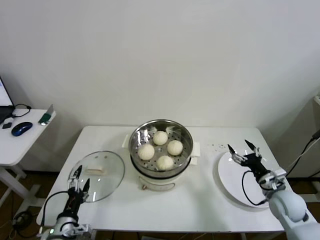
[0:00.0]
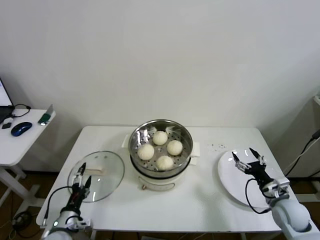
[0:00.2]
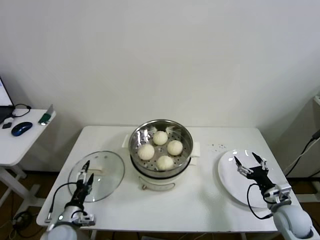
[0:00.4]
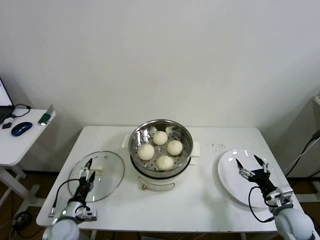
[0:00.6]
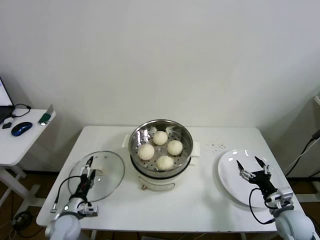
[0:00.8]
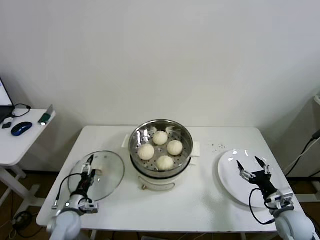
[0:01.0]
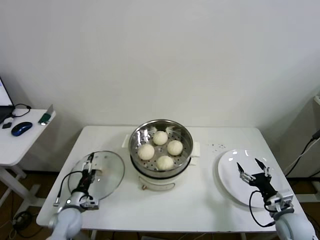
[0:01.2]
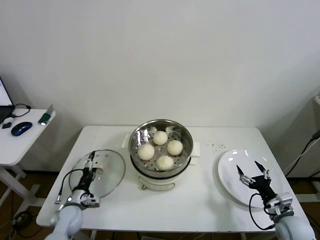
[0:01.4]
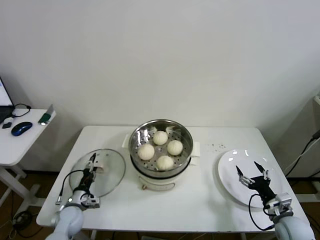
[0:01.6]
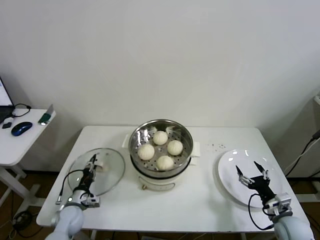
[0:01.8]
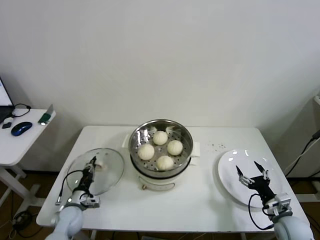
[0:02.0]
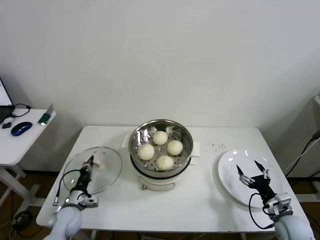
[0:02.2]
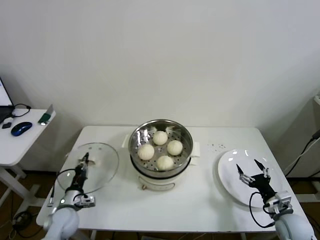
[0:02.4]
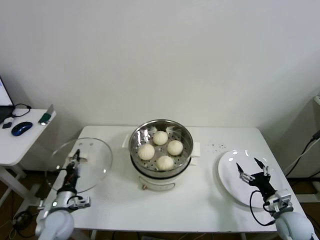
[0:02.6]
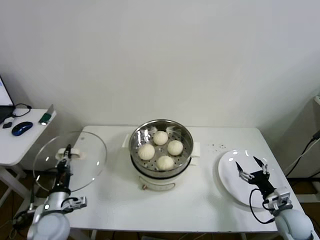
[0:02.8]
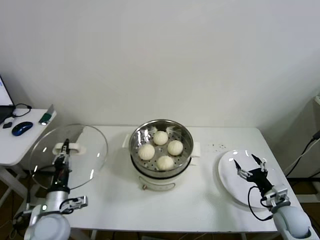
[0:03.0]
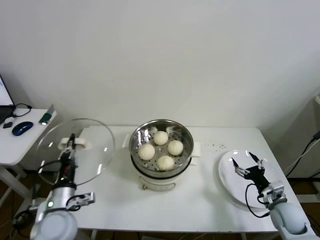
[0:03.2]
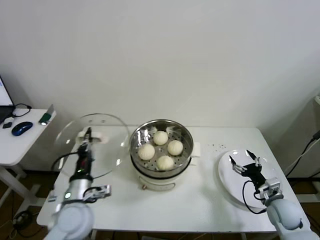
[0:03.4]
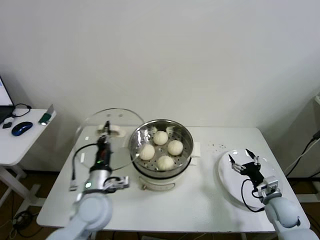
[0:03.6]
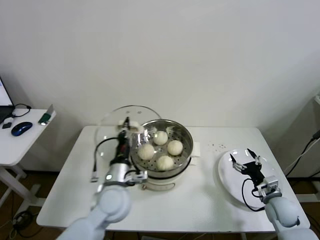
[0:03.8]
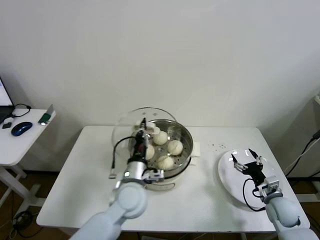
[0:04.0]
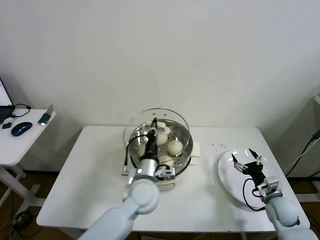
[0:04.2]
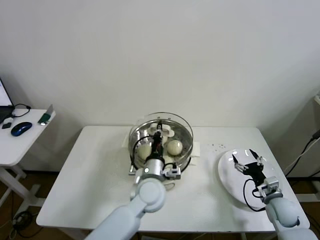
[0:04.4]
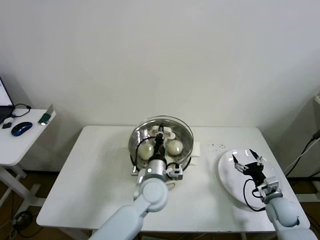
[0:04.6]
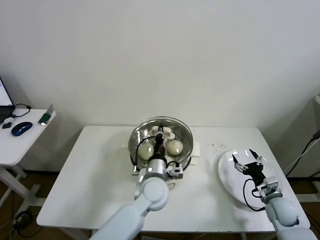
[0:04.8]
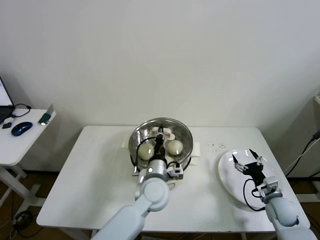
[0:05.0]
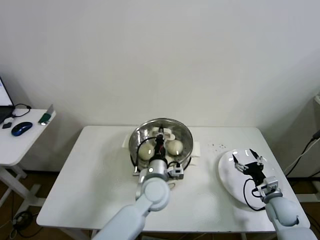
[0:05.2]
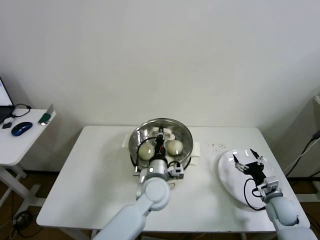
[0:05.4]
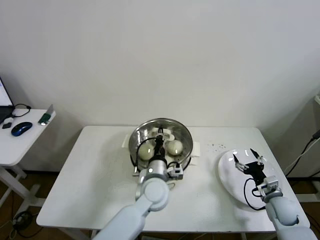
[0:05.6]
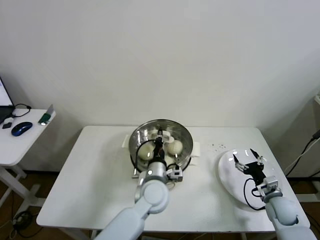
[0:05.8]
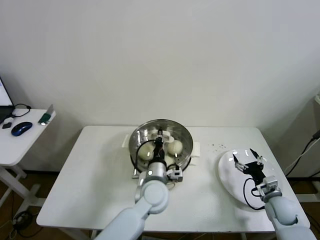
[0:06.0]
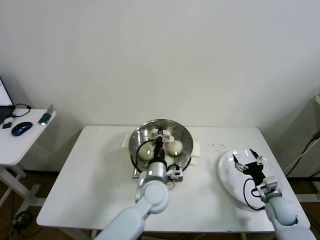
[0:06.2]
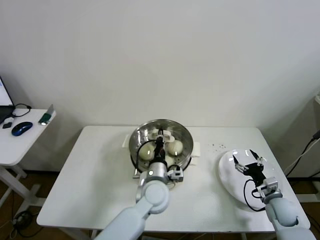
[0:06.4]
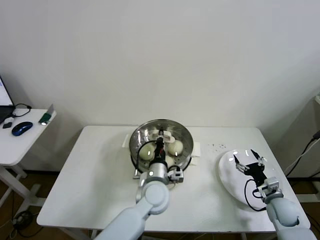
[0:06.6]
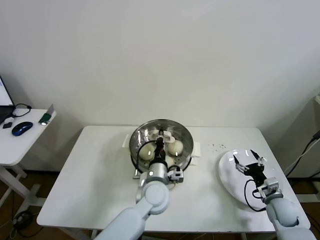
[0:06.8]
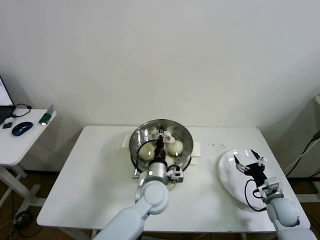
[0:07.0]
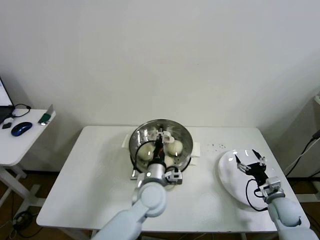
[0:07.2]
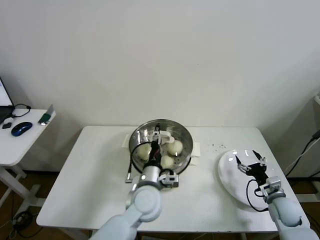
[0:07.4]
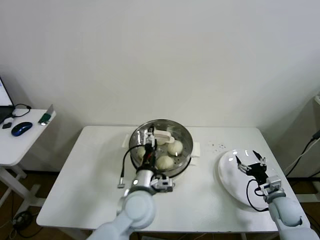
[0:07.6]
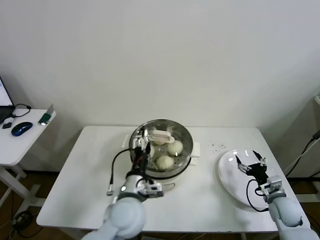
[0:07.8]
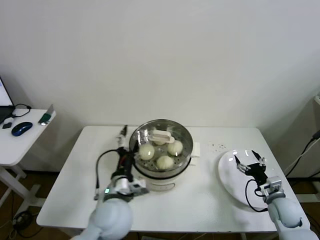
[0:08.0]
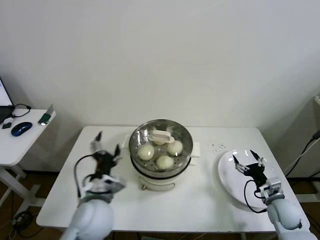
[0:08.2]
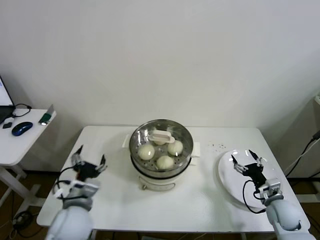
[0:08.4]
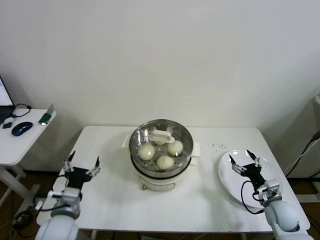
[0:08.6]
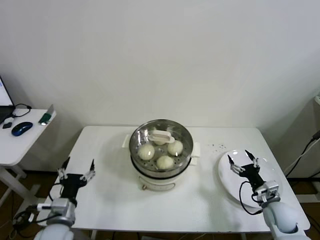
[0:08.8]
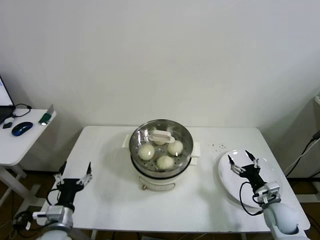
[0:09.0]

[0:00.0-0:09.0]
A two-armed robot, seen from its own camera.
Step, 0:00.0 to 0:02.0: Grasp the pot lid with left gripper.
Step, 0:02.2 to 0:06.8: Place the pot lid on the steamer with left gripper.
0:00.0 to 0:01.6: The left gripper goes about 15 cm forward and downward; the right gripper heads backward, covering some 5 cm.
0:01.6 to 0:03.0: The left gripper shifts approximately 15 cm upward and backward, and closes.
0:03.0 to 0:04.4: The left gripper travels to the right by about 30 cm.
0:04.4 to 0:06.0: There are only small adjustments of the grippers.
0:06.0 to 0:07.6: The left gripper changes place by about 5 cm, and opens its fingers.
0:07.6 to 0:09.0: The left gripper is displaced to the left by about 25 cm.

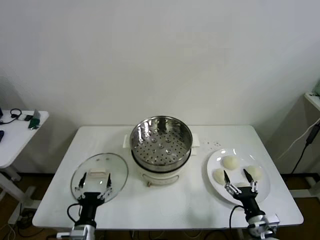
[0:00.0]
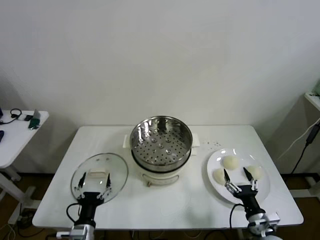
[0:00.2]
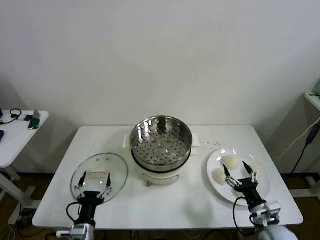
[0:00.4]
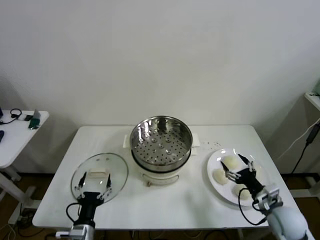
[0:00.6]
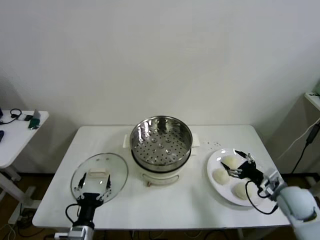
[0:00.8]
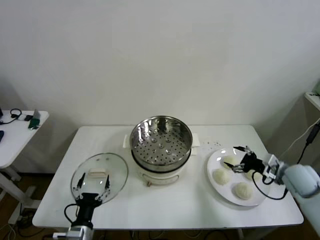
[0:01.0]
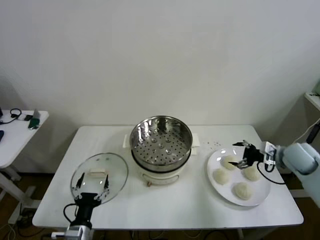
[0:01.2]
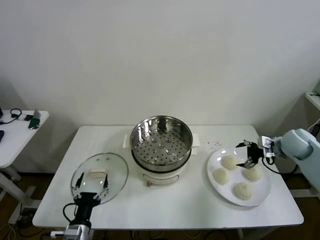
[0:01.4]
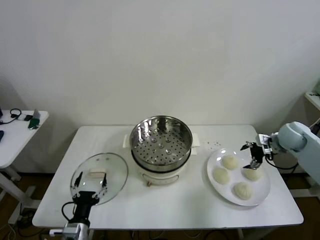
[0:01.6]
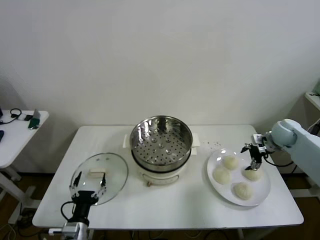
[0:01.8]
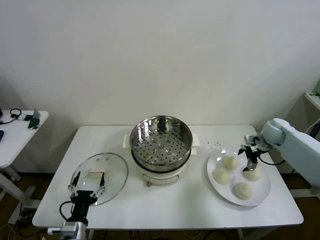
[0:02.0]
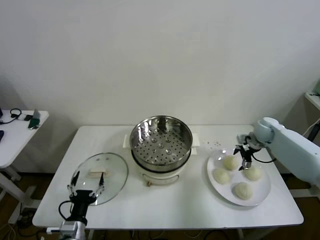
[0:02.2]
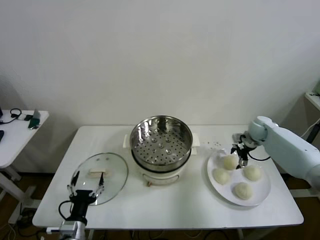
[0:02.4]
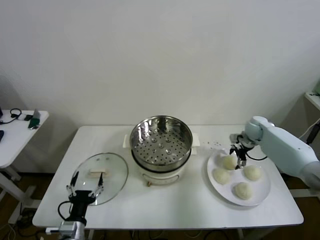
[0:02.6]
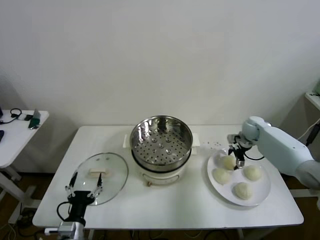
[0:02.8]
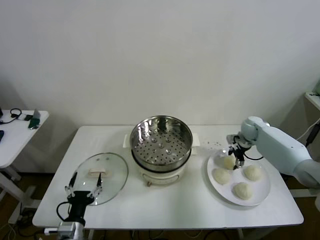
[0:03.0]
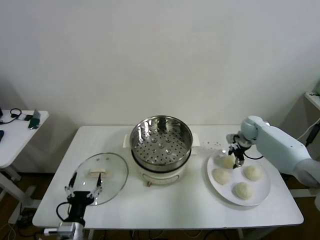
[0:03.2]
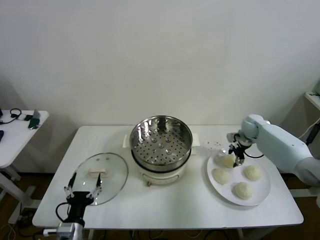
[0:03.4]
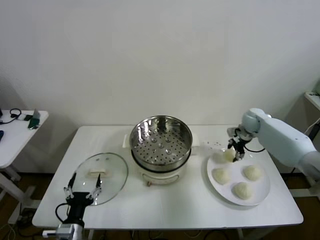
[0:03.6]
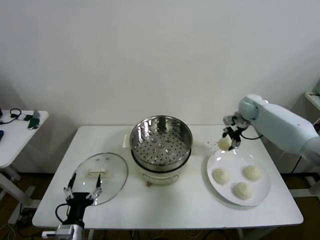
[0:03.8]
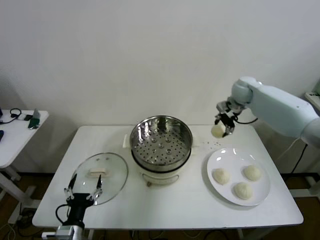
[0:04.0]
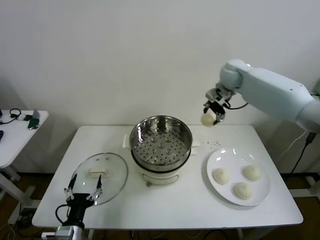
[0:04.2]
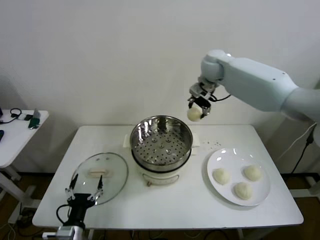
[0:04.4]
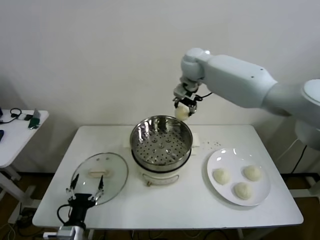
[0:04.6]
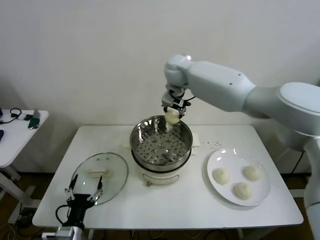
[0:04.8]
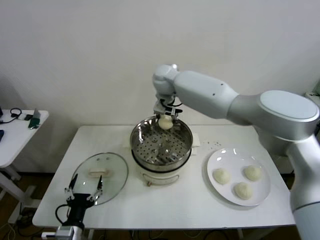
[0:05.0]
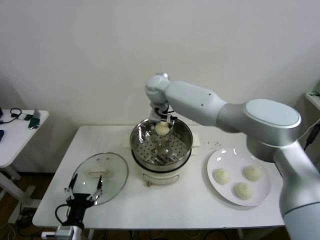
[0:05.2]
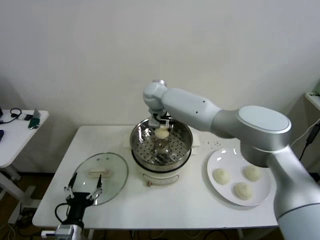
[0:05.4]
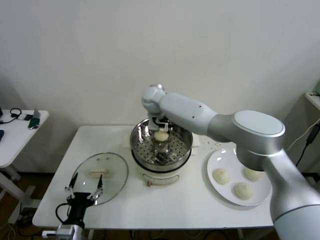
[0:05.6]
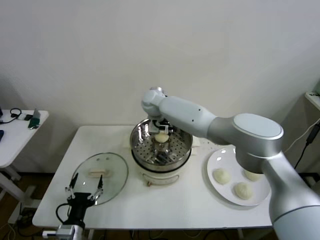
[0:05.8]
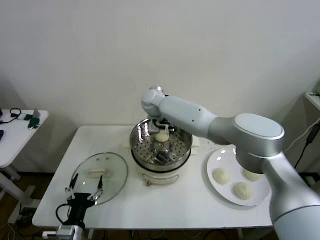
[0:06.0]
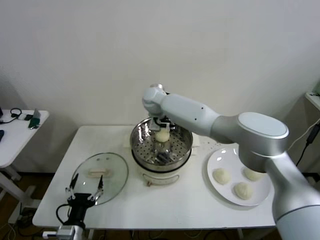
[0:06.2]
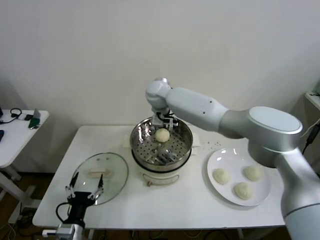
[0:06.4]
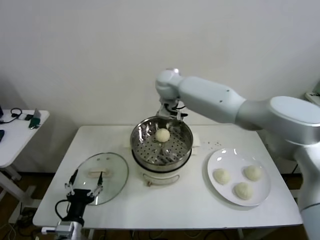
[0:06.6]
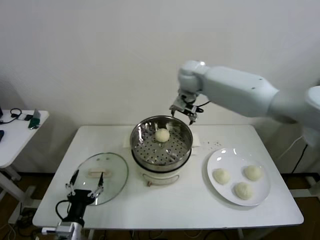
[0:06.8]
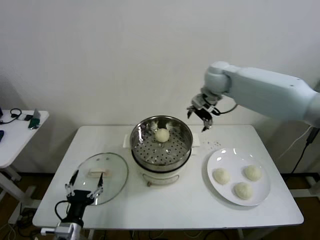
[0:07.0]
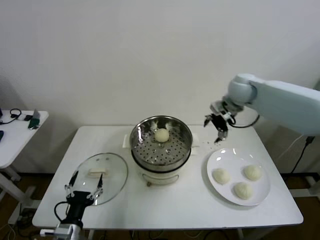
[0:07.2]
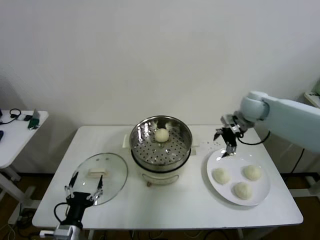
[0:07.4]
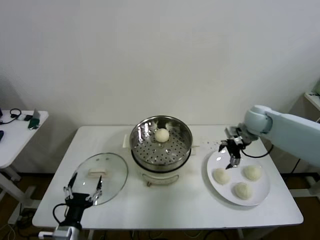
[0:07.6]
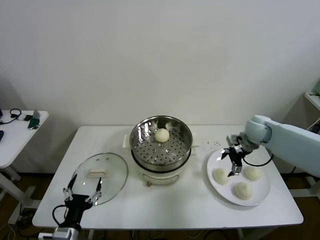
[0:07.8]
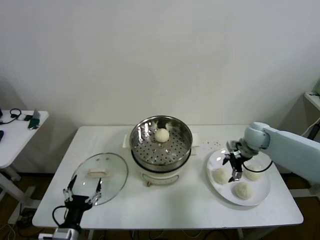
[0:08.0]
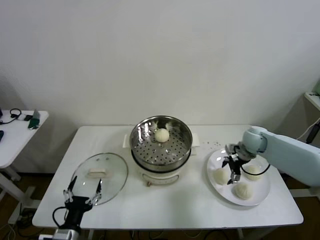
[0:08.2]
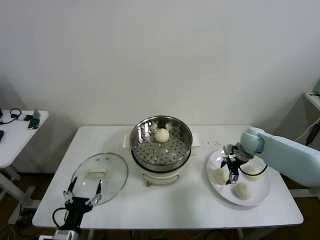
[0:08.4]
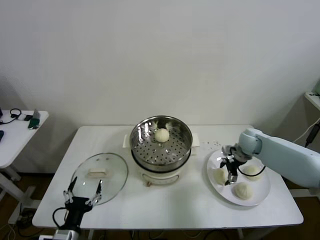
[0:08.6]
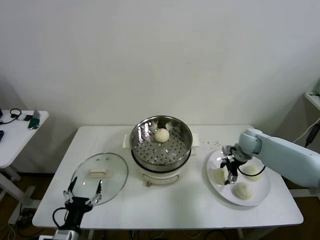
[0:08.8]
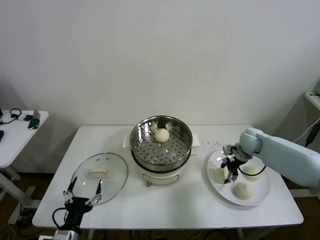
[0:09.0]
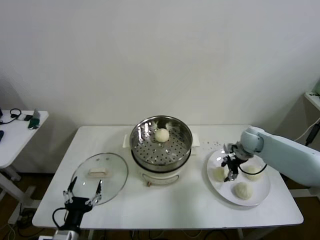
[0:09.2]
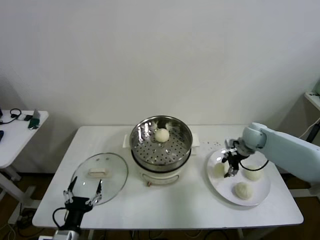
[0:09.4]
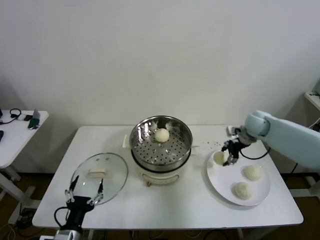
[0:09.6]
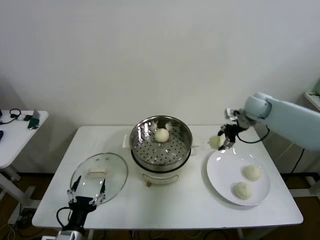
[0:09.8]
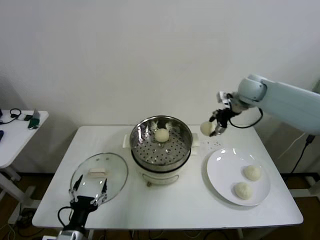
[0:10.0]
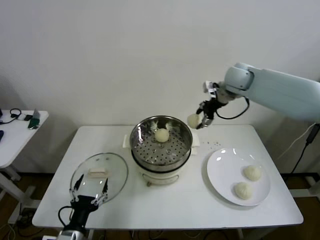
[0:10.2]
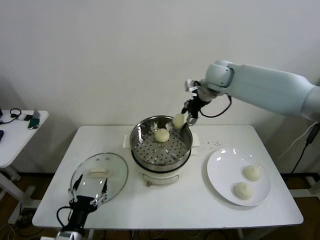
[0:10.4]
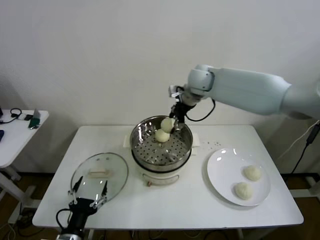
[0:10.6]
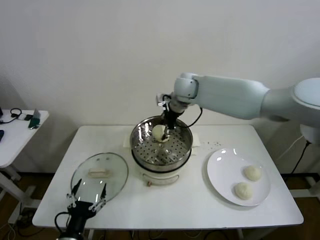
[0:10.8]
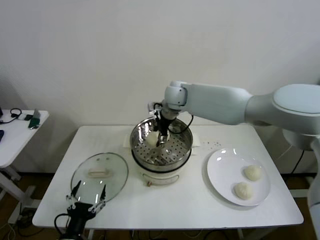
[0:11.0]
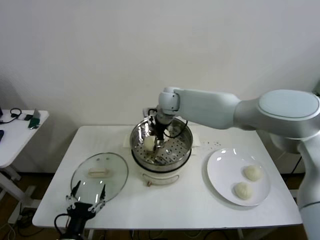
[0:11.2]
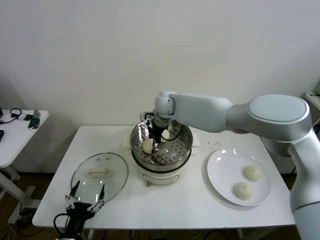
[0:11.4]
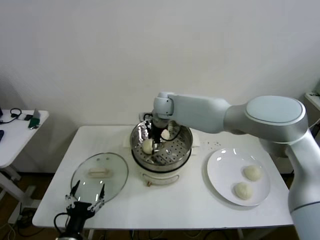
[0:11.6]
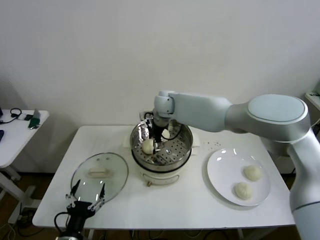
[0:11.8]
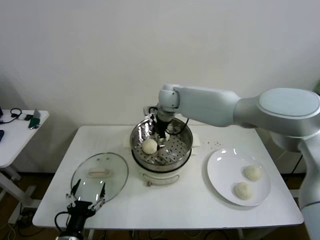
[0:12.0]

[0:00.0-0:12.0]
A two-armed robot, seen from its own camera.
Step, 0:00.0 to 0:03.2: Grasp the baozi in the plate with right gripper.
Step, 0:03.4 to 0:05.8: Place the baozi on the steamer with right gripper.
Step, 0:06.2 to 0:09.2: Grasp the baozi in the plate with right gripper.
Step, 0:09.4 to 0:11.8: Place the baozi on the steamer with right gripper.
0:01.6 to 0:03.0: The right gripper heads forward, to the left and downward, covering some 15 cm, and closes up.
0:03.0 to 0:04.4: The right gripper shifts approximately 35 cm upward and to the left.
0:04.4 to 0:06.0: The right gripper heads to the left and downward, covering some 20 cm, and opens its fingers.
0:06.0 to 0:07.6: The right gripper moves to the right, about 35 cm.
0:07.6 to 0:09.0: The right gripper goes approximately 10 cm downward, and closes its fingers.
0:09.0 to 0:10.4: The right gripper moves upward and to the left, approximately 30 cm.
0:10.4 to 0:12.0: The right gripper shifts approximately 15 cm to the left and downward, and opens its fingers.

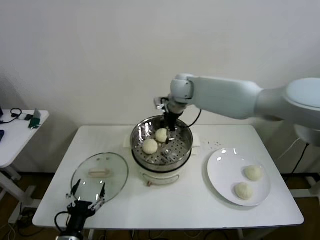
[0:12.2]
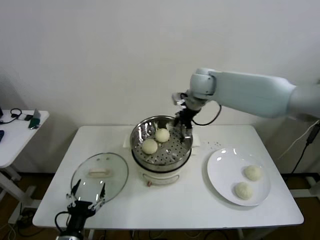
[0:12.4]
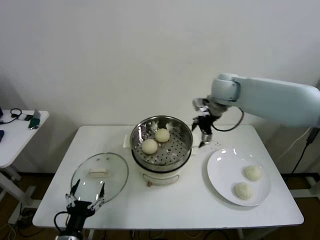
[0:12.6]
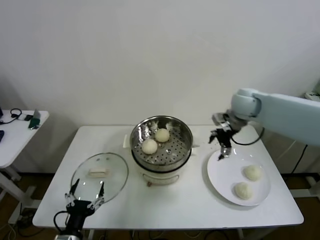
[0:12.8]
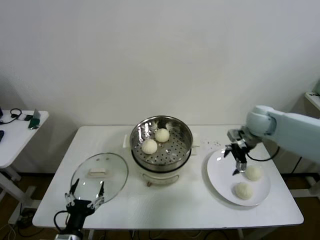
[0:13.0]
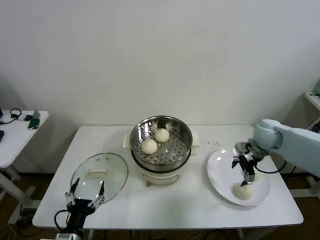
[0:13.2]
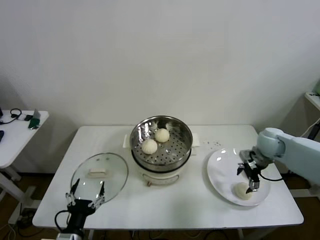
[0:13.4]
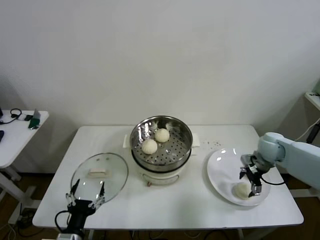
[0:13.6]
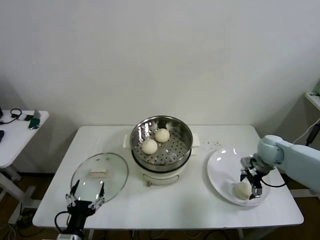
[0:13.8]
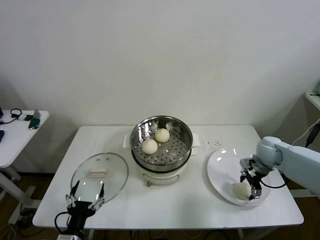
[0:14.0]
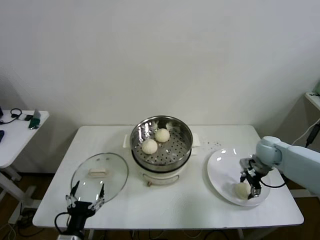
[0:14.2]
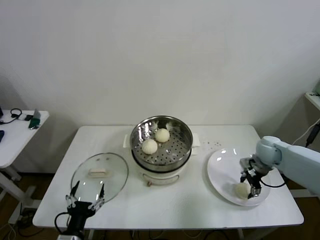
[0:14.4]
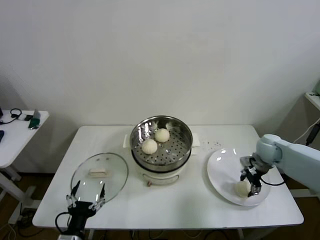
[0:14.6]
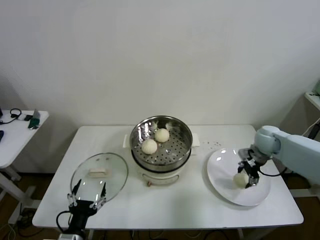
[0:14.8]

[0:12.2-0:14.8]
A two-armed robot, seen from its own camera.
Step, 0:12.2 to 0:14.4: Grasp the baozi in the plate with right gripper.
0:12.2 to 0:13.4: The right gripper goes about 35 cm to the right, downward and backward.
0:13.4 to 0:14.8: The right gripper closes up.
